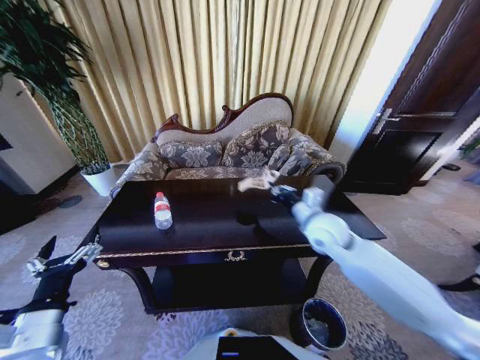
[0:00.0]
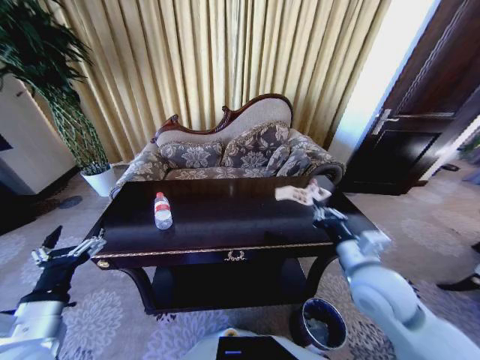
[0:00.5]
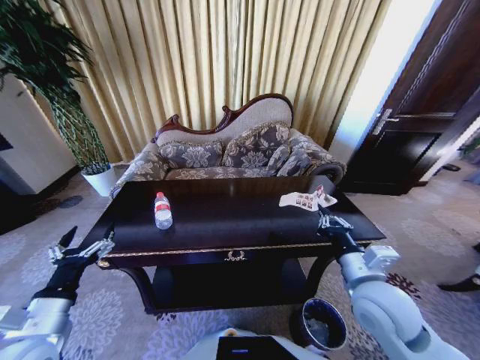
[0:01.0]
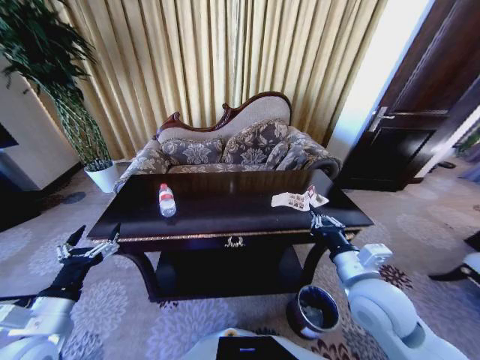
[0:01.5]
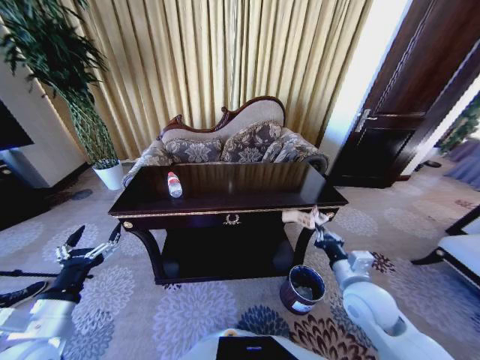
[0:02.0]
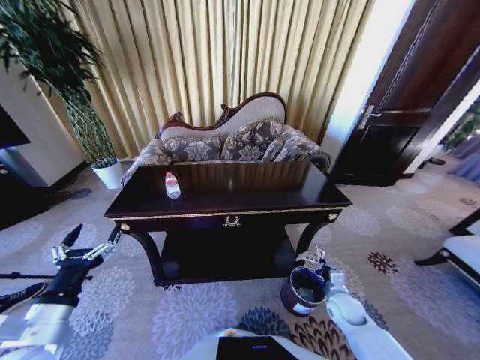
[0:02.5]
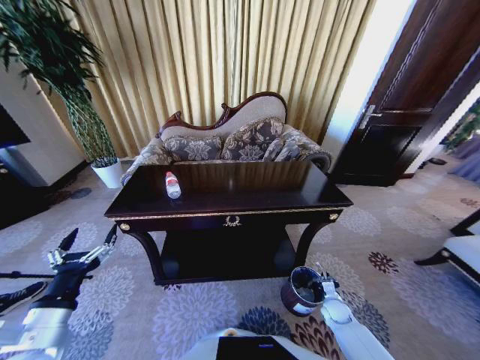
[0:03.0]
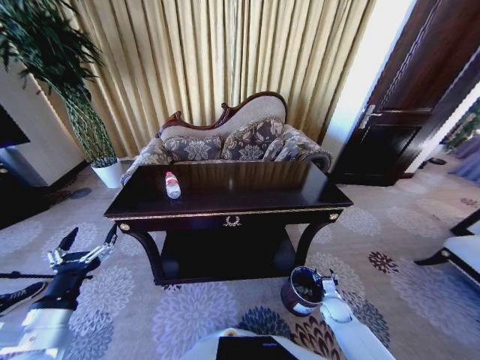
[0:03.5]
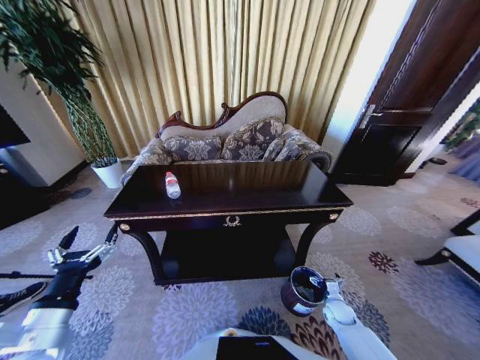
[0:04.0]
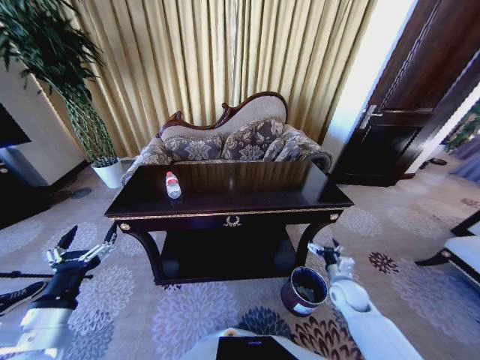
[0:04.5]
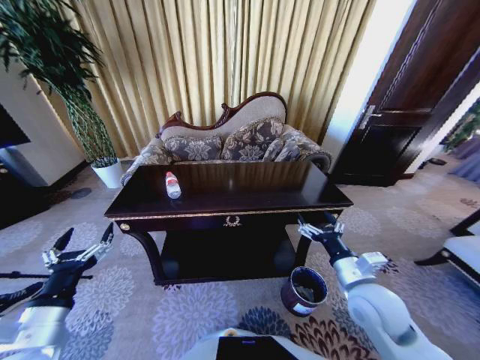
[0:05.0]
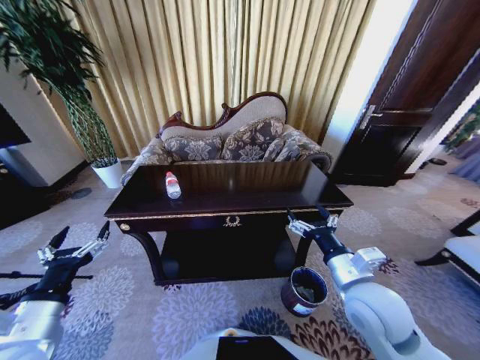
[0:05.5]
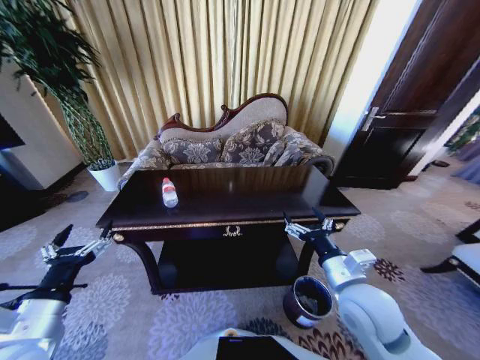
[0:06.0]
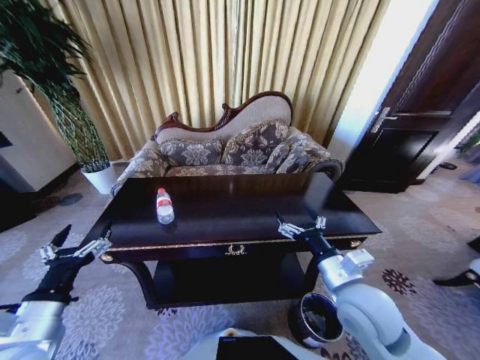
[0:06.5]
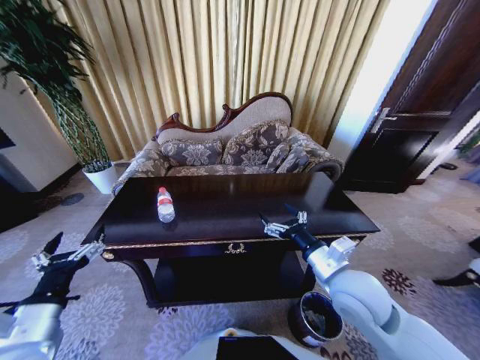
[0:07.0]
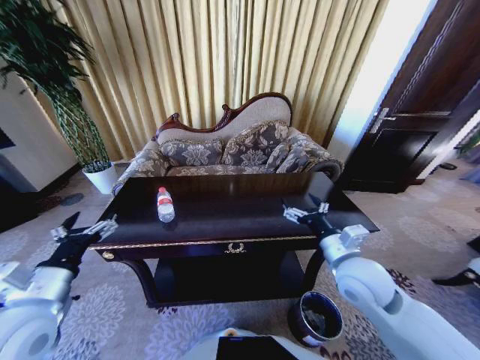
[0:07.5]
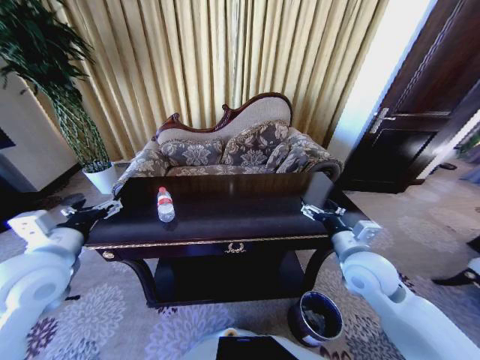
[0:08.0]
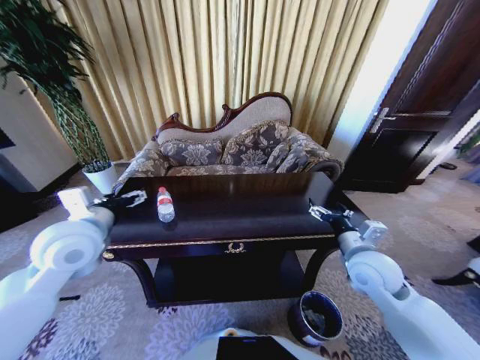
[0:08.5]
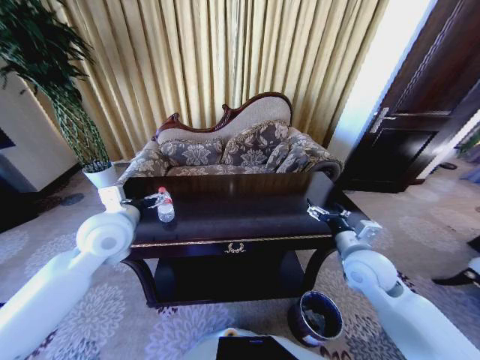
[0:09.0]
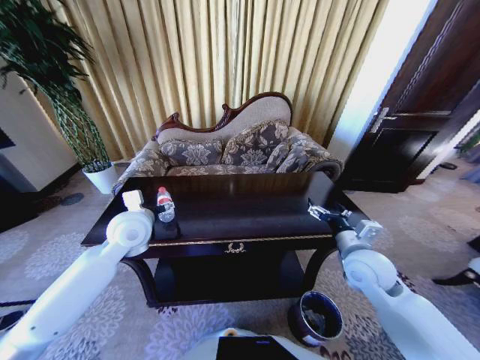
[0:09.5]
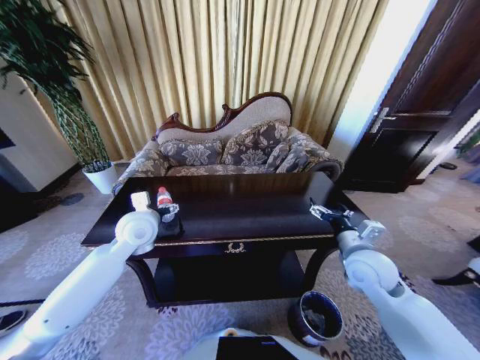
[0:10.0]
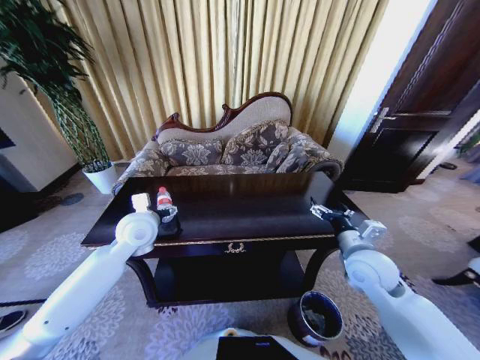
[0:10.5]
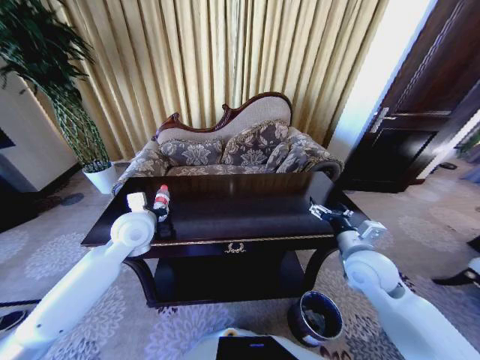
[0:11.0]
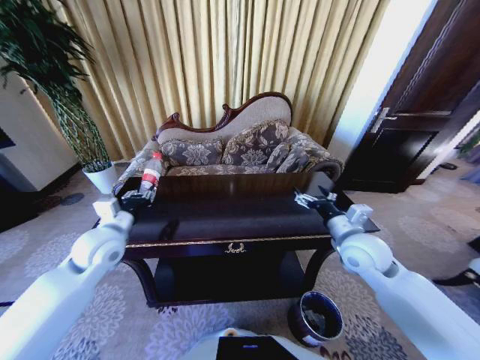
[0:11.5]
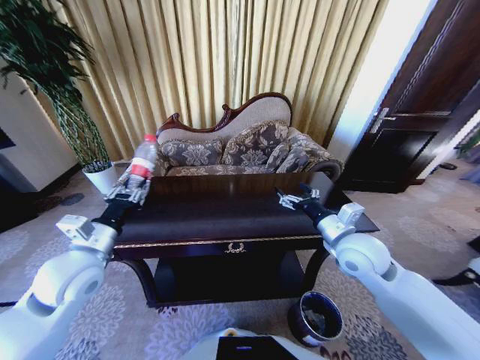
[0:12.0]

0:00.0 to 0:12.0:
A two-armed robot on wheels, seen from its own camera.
Task of the whole recording: Move to the front of the table and place the trash on the table into the trash bin.
0:00.0 to 0:02.0: The right gripper travels backward, downward and to the right by about 20 cm.
0:02.0 to 0:04.0: The right gripper travels downward by approximately 30 cm, and opens.
0:04.0 to 0:06.0: The right gripper is displaced upward and to the left by approximately 35 cm.
0:06.0 to 0:08.0: The right gripper goes roughly 5 cm forward. The left gripper goes approximately 15 cm forward and upward.
0:08.0 to 0:10.0: The left gripper goes roughly 20 cm forward and to the right.
0:10.0 to 0:12.0: The left gripper heads backward and to the left, covering about 15 cm, and closes up, while the right gripper changes place by about 5 cm.

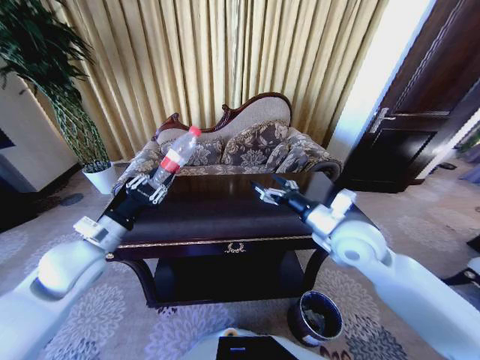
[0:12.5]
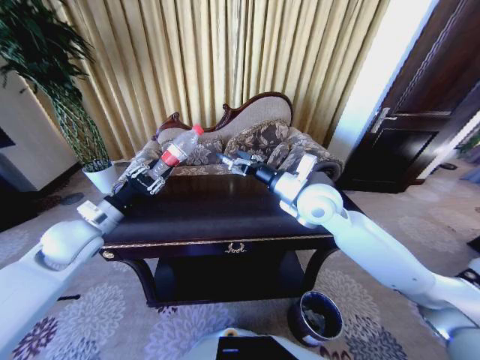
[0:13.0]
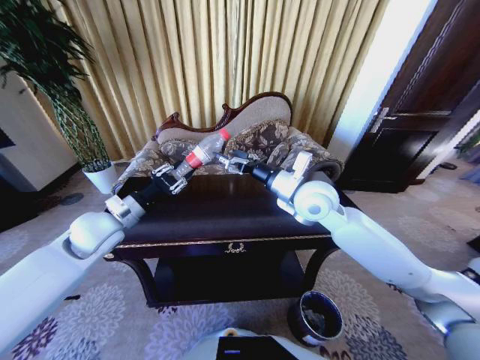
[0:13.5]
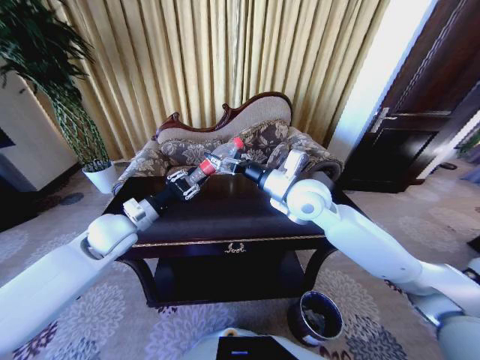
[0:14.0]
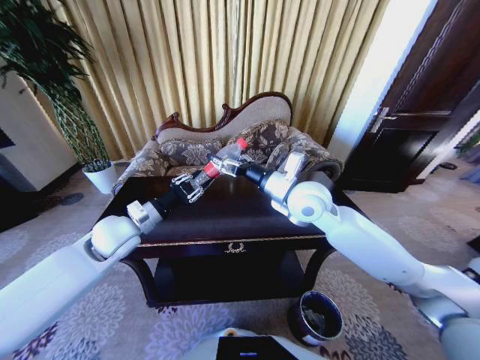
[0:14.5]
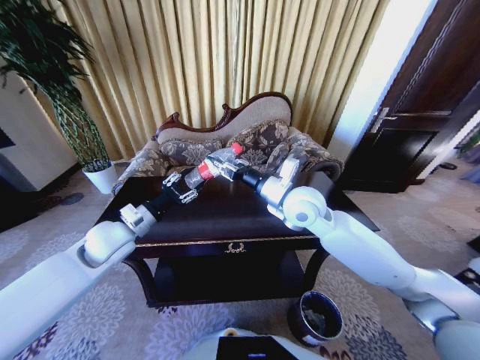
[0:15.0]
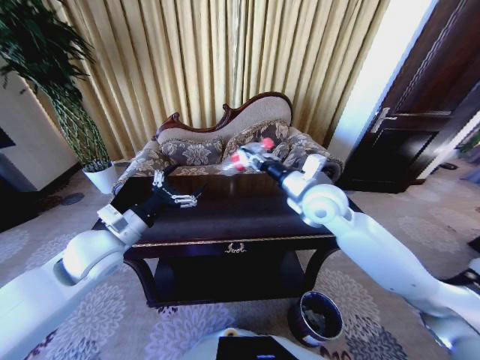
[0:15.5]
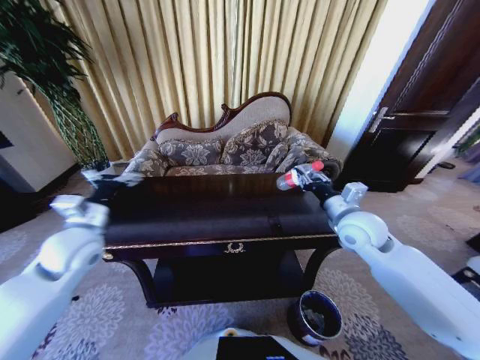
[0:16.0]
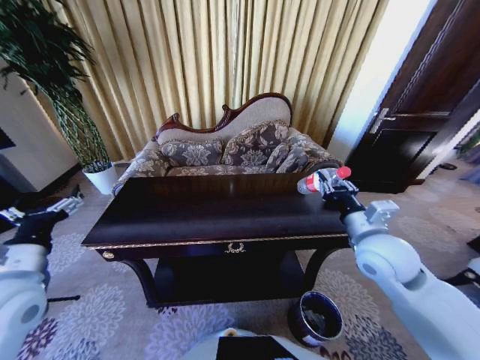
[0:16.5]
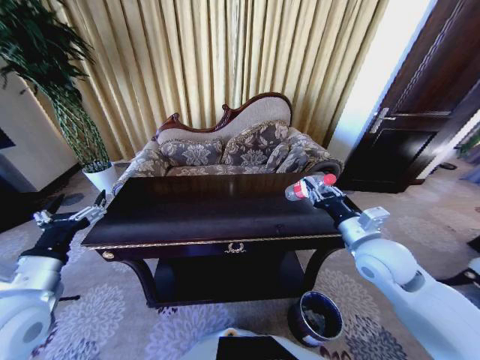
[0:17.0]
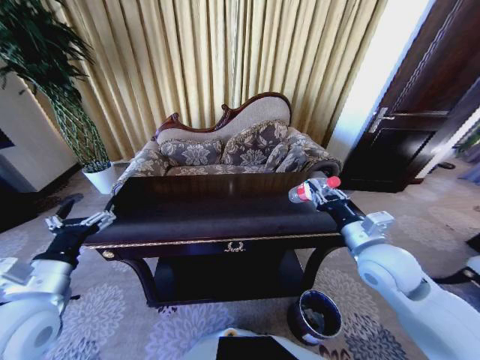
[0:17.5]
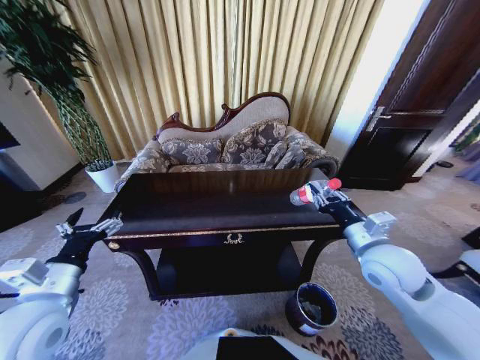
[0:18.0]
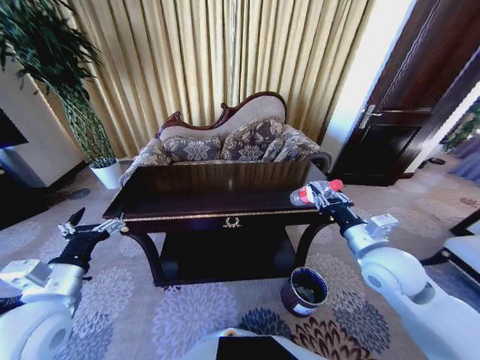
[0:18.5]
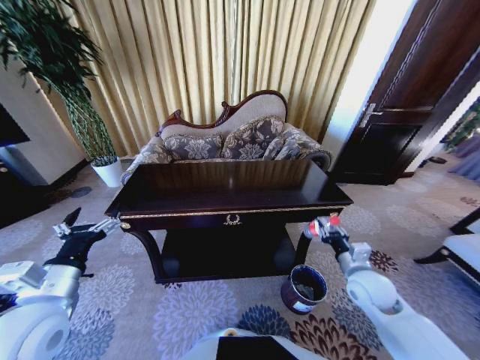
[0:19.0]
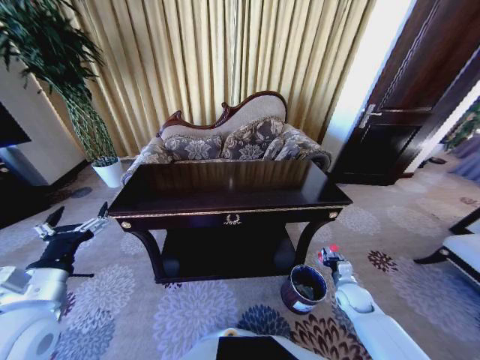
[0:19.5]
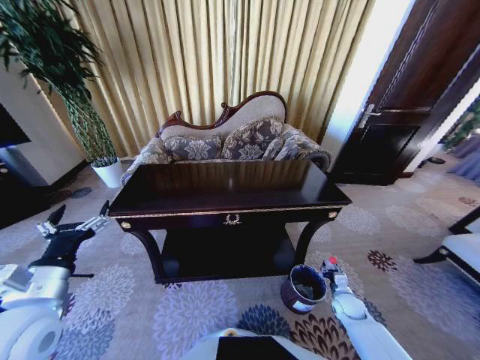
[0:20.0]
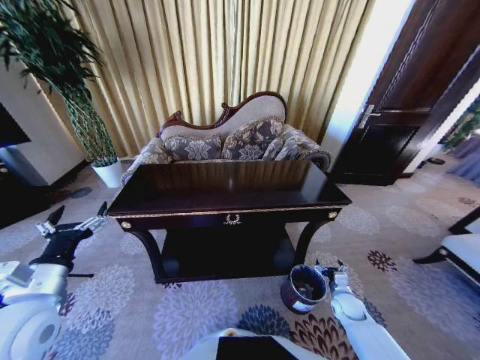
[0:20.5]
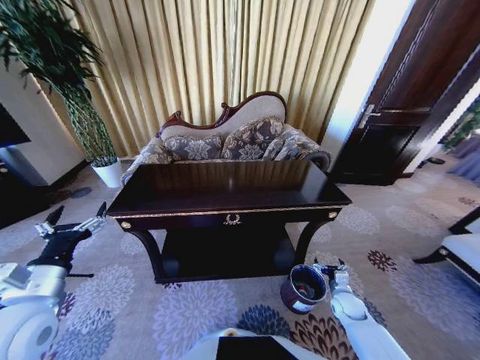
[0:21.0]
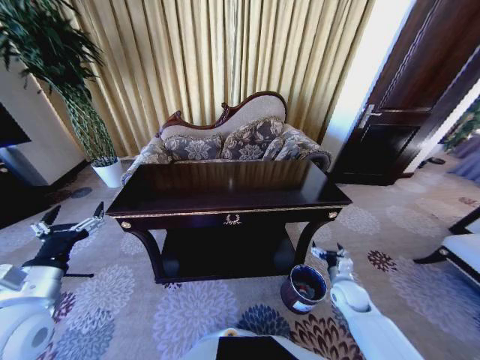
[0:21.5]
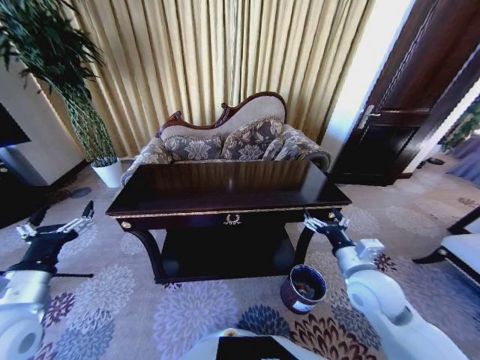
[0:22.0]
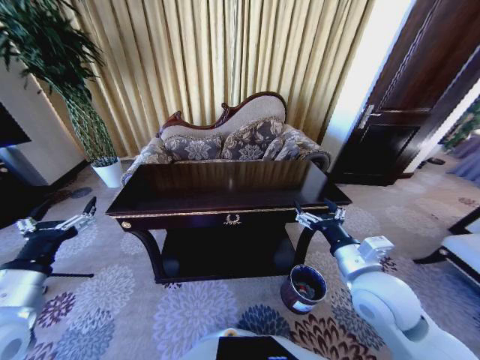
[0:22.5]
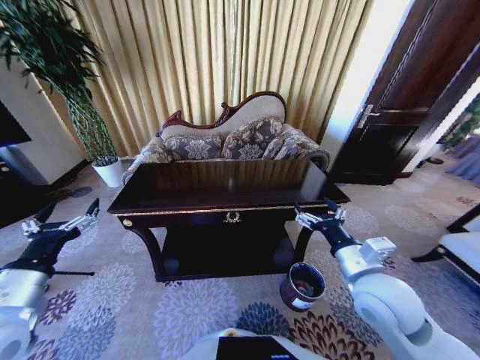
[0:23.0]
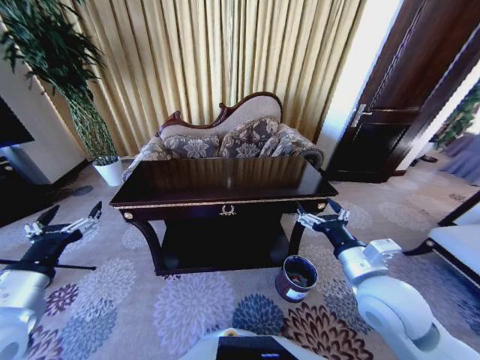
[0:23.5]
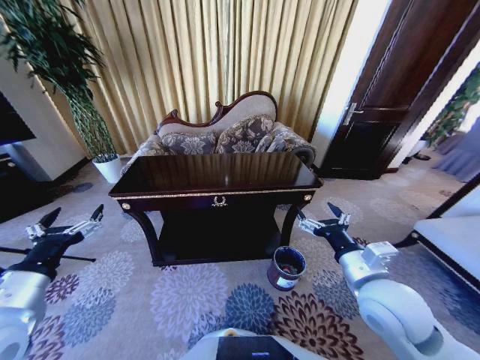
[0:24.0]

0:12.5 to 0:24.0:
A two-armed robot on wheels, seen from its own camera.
Task of the whole recording: Move to the front of the table and place the trash on the table into the trash bin.
0:12.5 to 0:14.5: The right gripper travels to the left and forward by some 10 cm; the left gripper is displaced forward by about 5 cm.
0:14.5 to 0:16.5: The right gripper goes about 20 cm to the right, backward and downward, and closes up; the left gripper travels backward and to the left by approximately 20 cm, and opens its fingers.
0:16.5 to 0:18.5: The left gripper ends up roughly 5 cm from where it was.
0:18.5 to 0:20.0: The right gripper moves downward, about 35 cm.
0:20.0 to 0:22.0: The right gripper shifts about 30 cm upward, and opens its fingers.
0:22.0 to 0:24.0: The right gripper is displaced upward by about 5 cm.

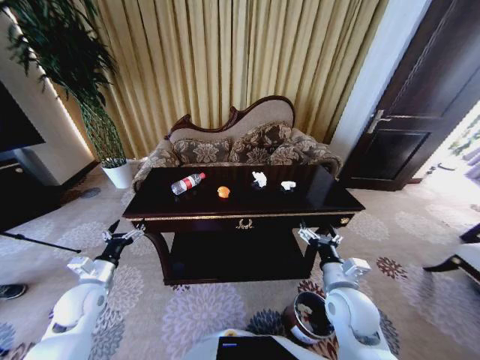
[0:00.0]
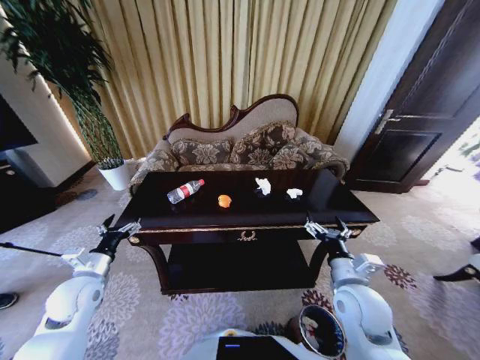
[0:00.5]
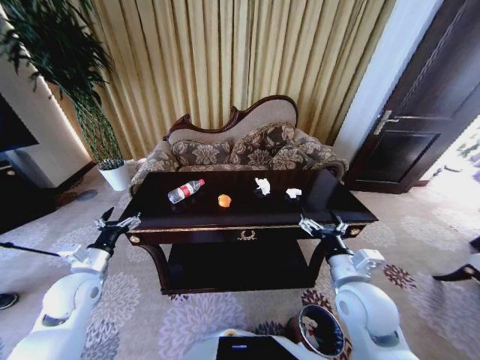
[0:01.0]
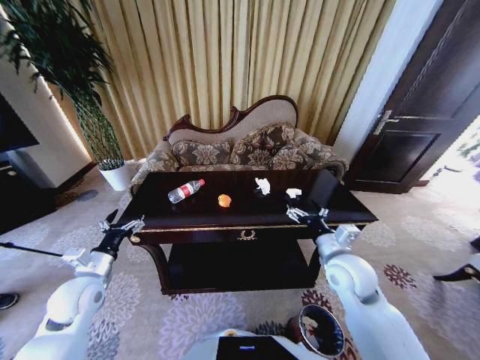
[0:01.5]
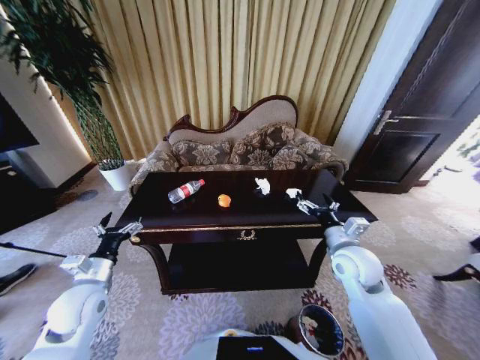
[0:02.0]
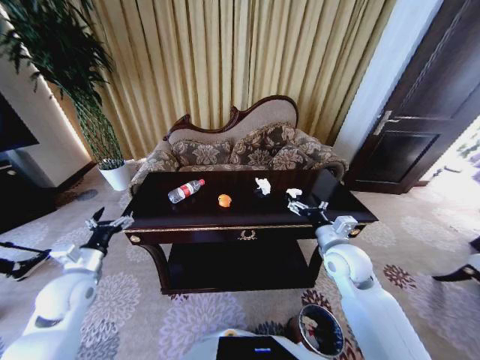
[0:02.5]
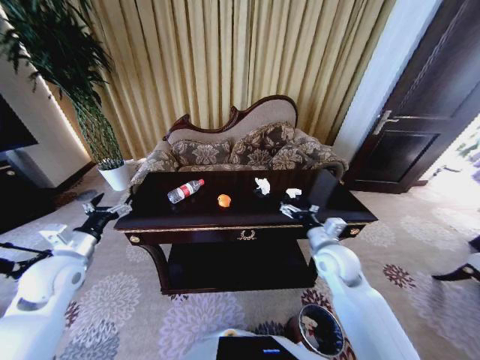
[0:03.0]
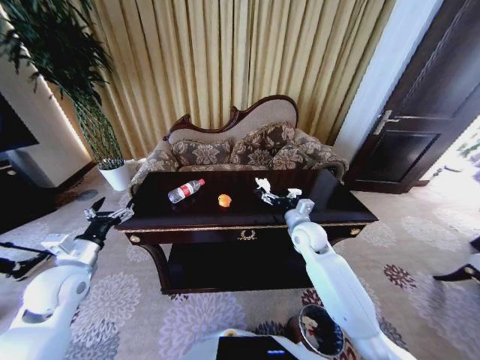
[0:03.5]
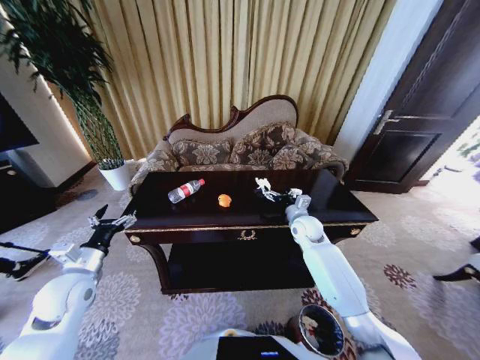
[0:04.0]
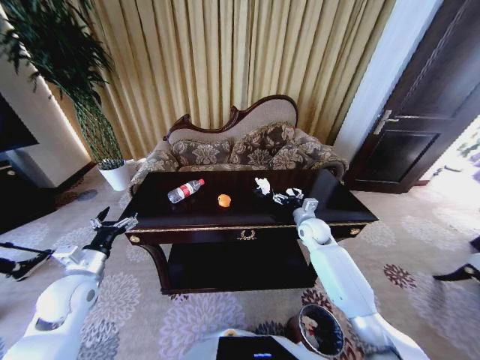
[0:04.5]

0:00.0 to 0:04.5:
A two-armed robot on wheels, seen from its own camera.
Task of the whole recording: Move to the front of the table and place the trash on the table into the trash bin.
0:00.0 to 0:02.0: The right gripper is displaced forward and upward by some 10 cm. The left gripper moves approximately 5 cm.
0:02.0 to 0:04.5: The right gripper goes roughly 20 cm forward and downward.
